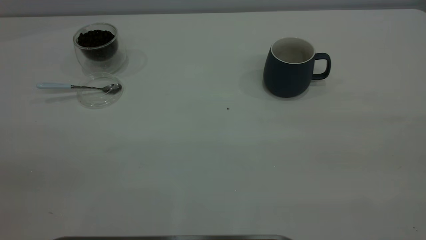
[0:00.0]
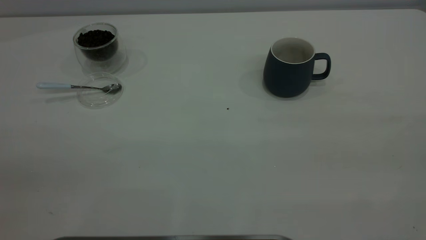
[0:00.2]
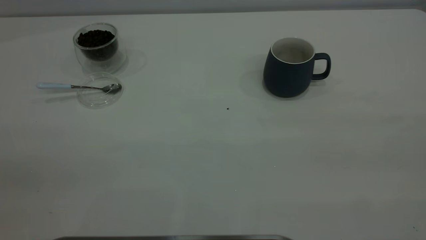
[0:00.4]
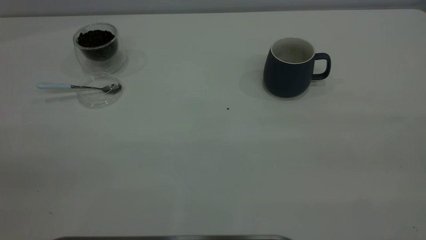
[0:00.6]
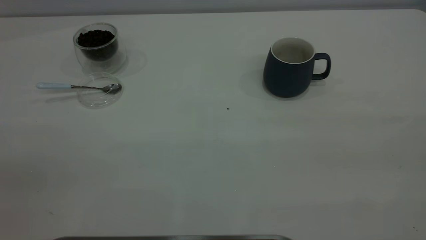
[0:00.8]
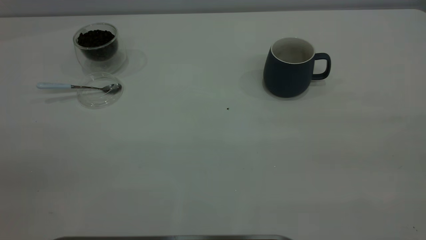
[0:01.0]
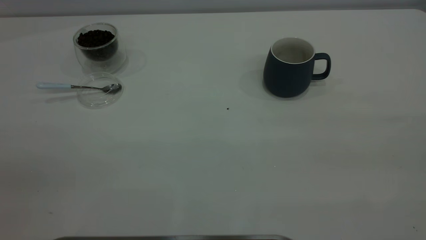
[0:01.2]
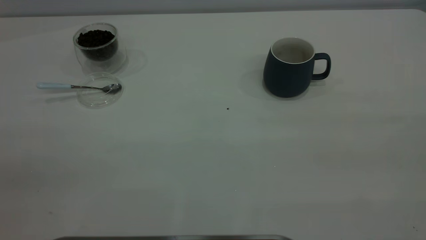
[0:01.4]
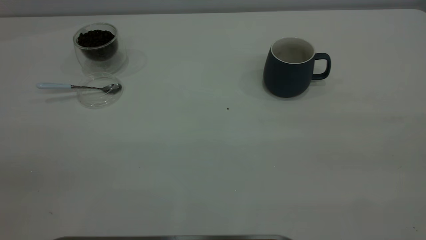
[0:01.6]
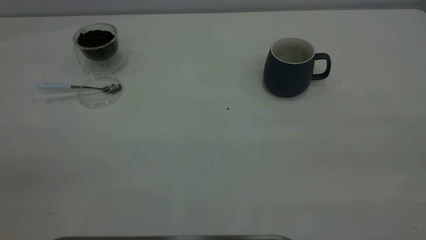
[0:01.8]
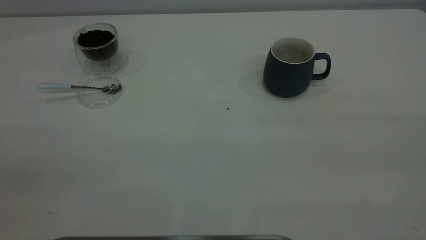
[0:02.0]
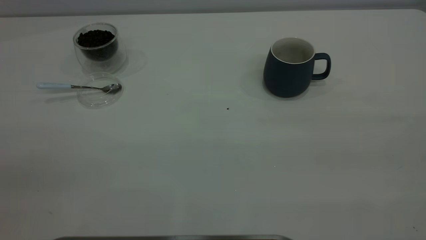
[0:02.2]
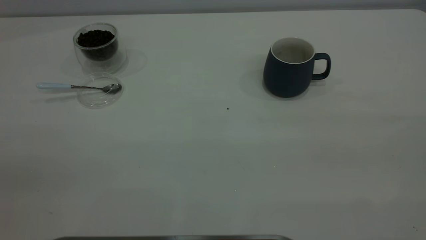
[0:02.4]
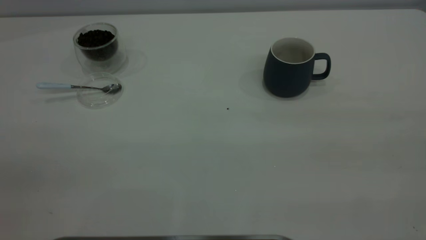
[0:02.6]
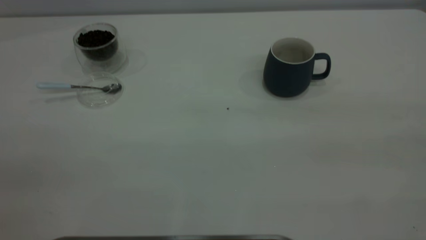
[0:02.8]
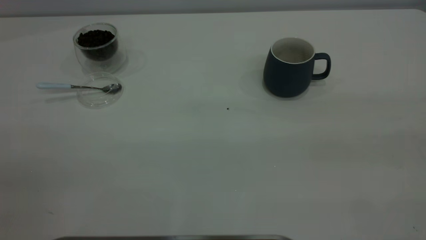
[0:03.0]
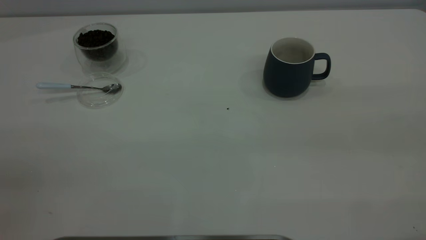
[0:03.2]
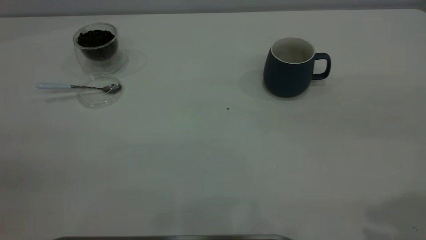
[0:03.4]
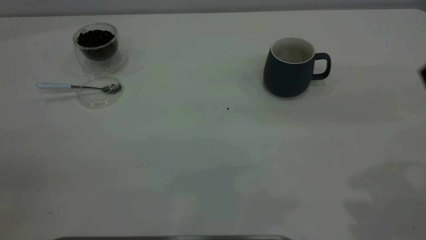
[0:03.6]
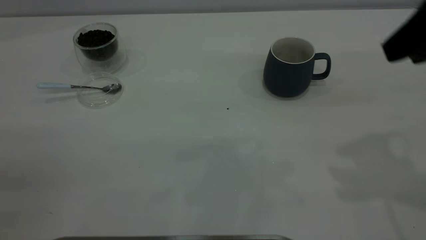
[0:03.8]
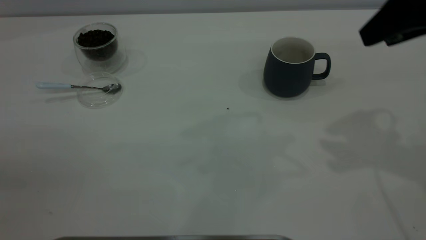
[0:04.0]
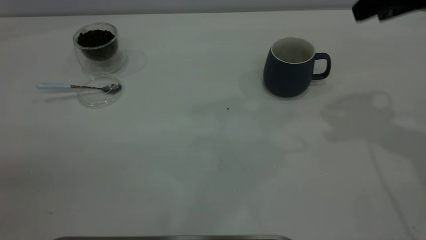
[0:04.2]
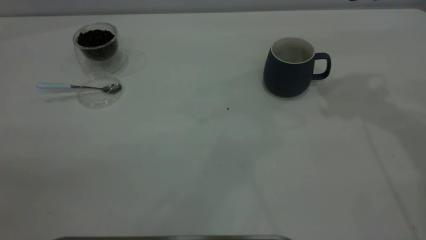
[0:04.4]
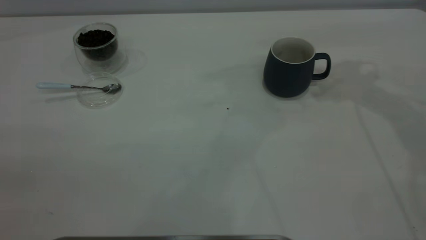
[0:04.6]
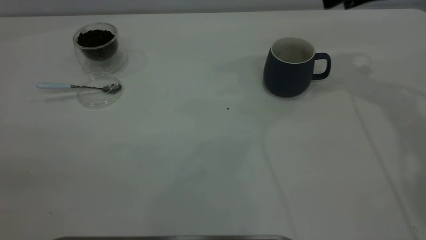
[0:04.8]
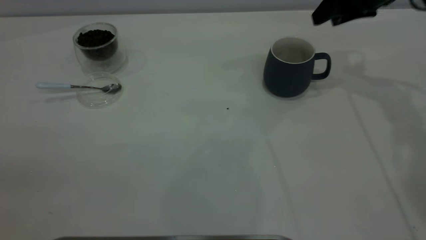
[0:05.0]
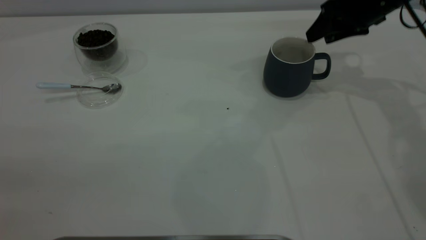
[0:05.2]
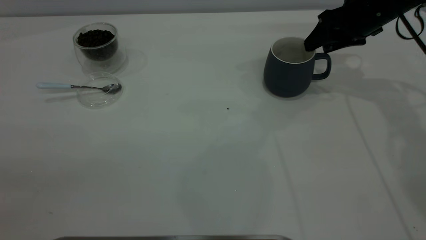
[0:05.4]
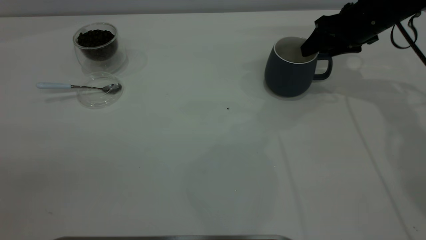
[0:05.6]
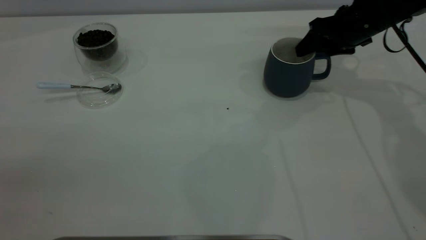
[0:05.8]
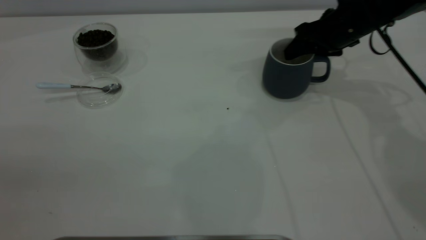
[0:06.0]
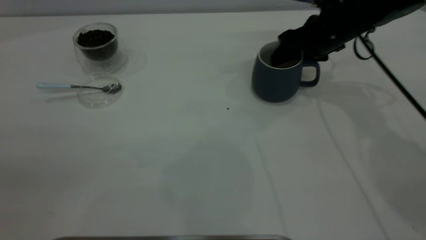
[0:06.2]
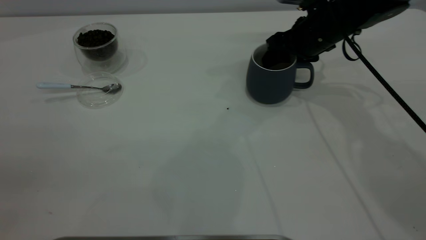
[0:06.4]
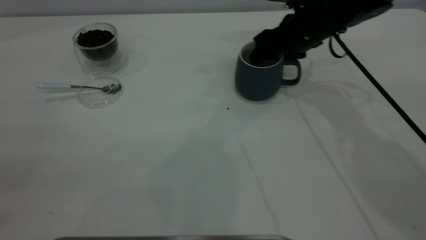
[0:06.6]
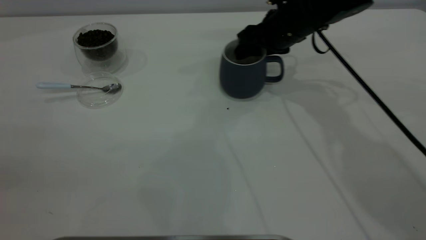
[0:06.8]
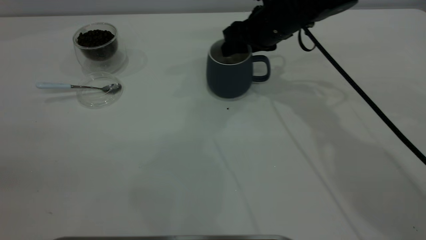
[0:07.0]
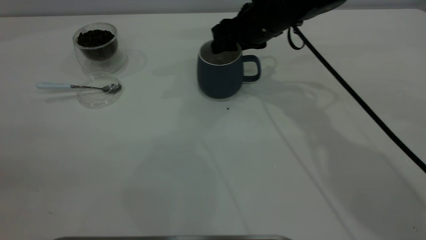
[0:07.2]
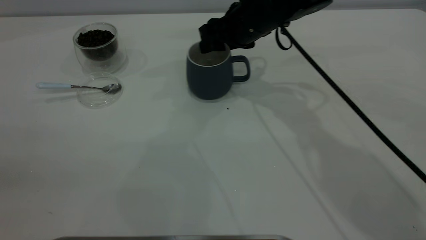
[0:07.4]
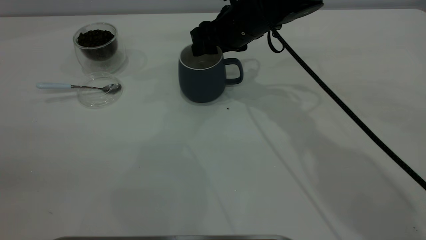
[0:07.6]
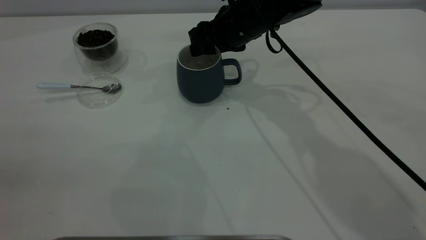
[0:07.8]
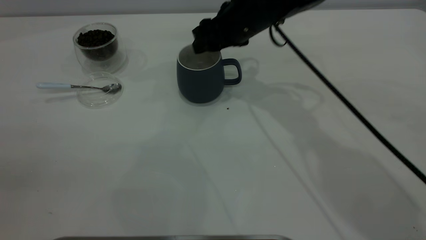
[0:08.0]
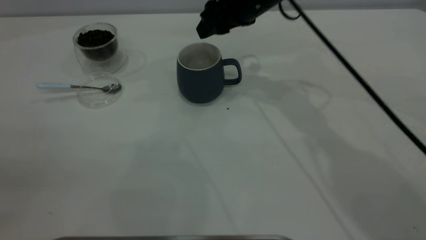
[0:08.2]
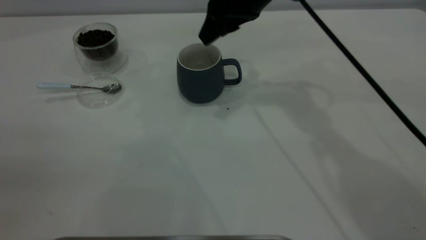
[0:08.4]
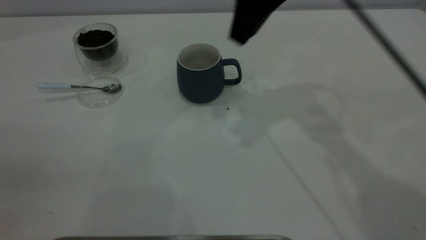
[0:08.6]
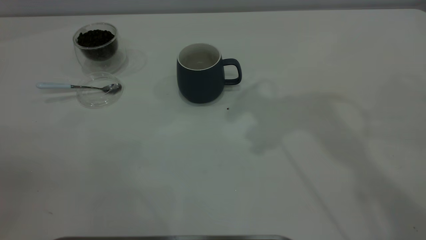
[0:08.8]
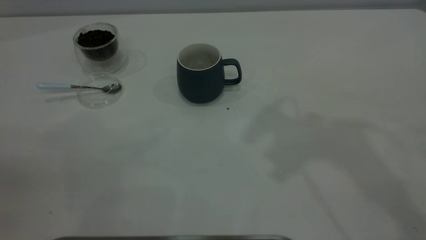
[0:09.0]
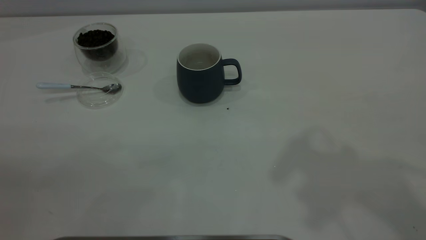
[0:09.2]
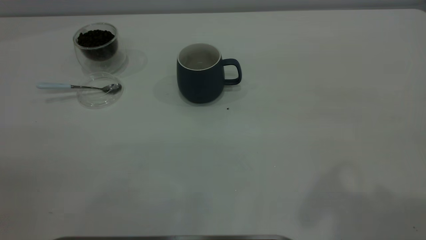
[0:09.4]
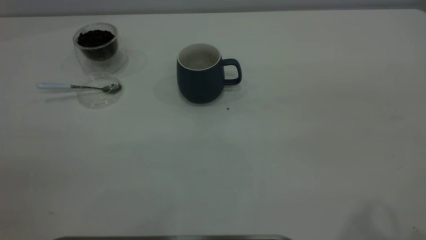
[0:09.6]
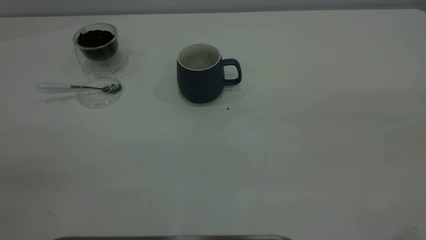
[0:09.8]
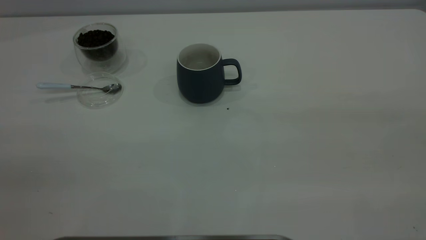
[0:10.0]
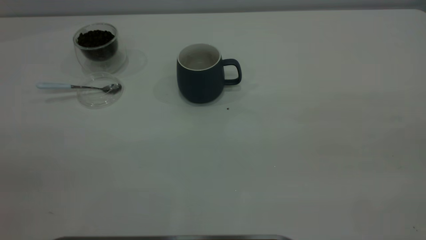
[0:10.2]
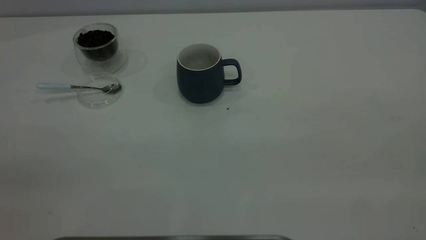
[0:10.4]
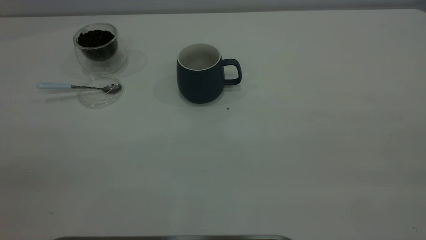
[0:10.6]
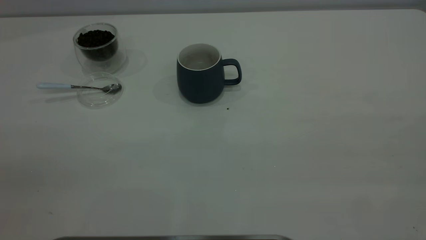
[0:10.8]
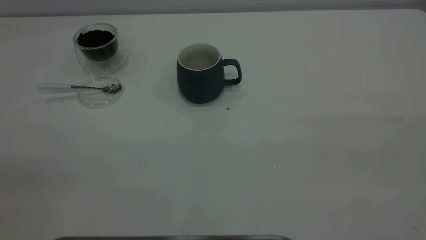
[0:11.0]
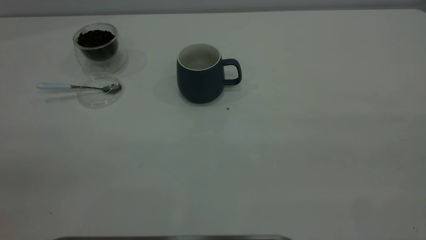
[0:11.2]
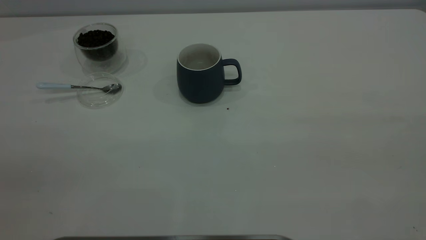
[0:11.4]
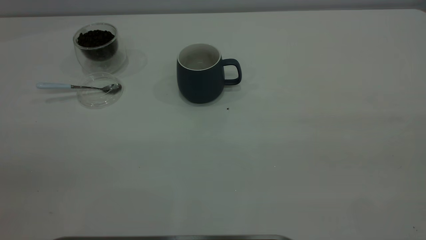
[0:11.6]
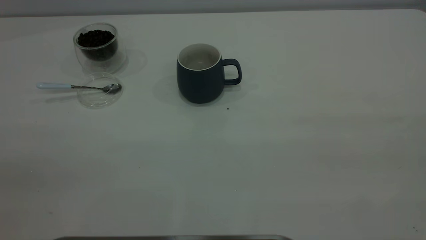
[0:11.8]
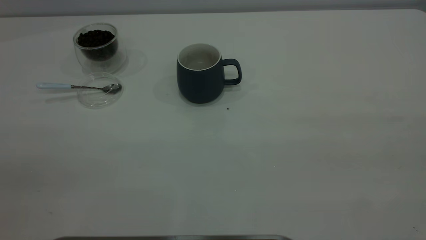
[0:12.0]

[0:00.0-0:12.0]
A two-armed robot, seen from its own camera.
Task of the whole recording: the right gripper place the grey cup in the center of the table, the left gripper take the blue spoon from the cup lid and scoop out the coffee beans from the coffee cup and put them into the grey cup, the left gripper put the spoon back into the cup lid.
Step, 0:00.0 to 0:08.2: Move the cup to the center of view.
0:00.0 to 0:01.6: Both grippers stay about where they are.
0:04.4 to 0:06.0: The right gripper goes approximately 15 cm downward and forward.
0:06.0 to 0:07.6: The right gripper shifts about 15 cm to the left.
0:07.6 to 0:09.0: The right gripper moves upward and backward, roughly 35 cm.

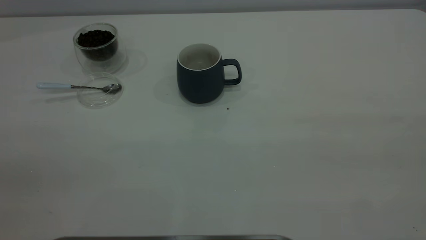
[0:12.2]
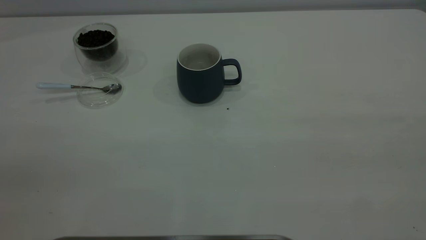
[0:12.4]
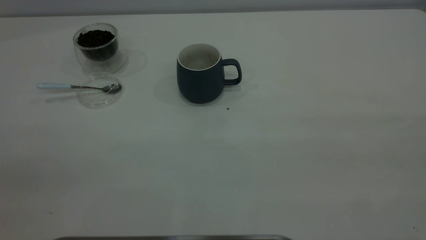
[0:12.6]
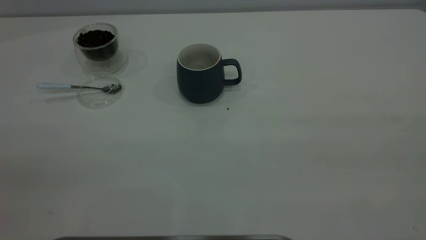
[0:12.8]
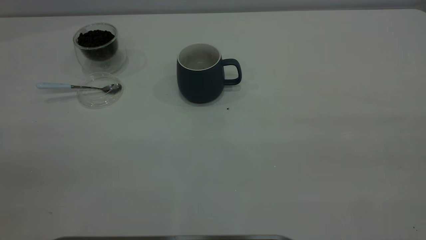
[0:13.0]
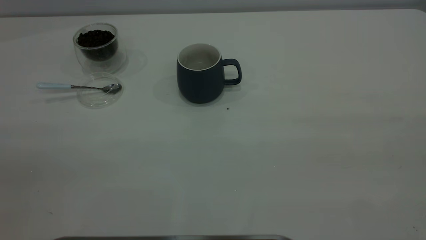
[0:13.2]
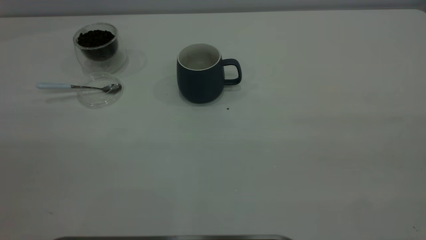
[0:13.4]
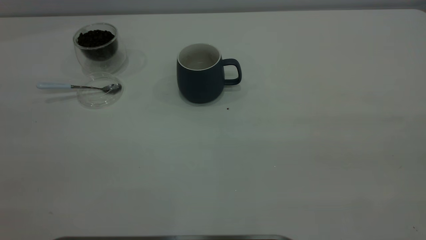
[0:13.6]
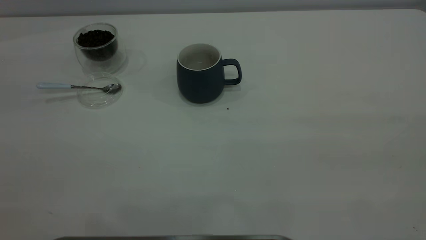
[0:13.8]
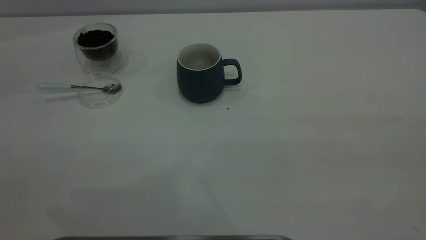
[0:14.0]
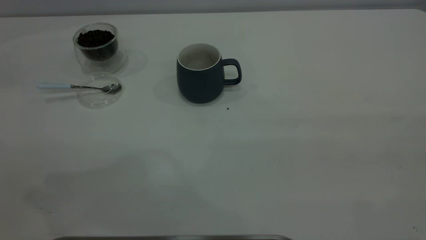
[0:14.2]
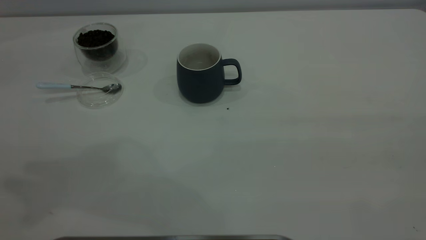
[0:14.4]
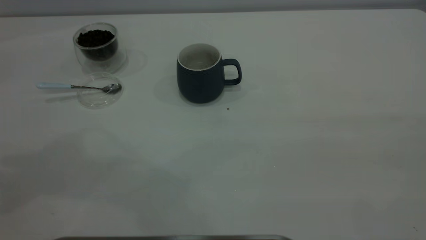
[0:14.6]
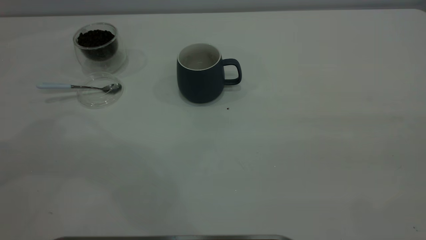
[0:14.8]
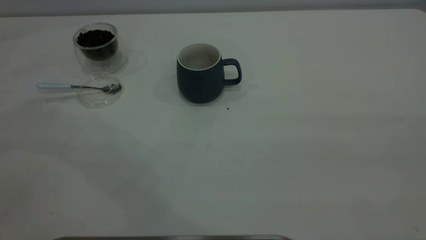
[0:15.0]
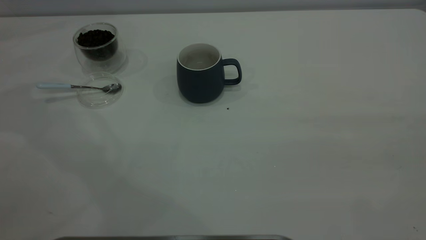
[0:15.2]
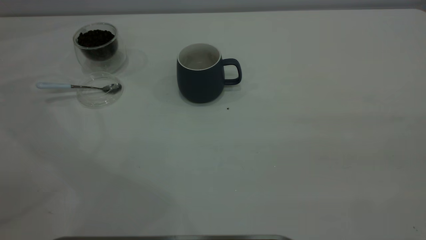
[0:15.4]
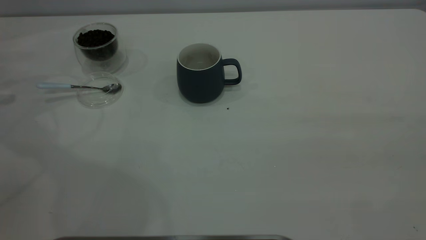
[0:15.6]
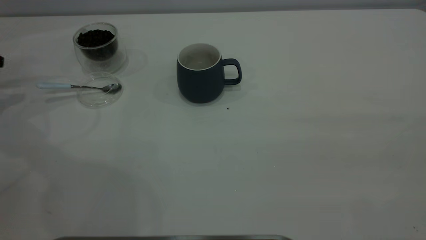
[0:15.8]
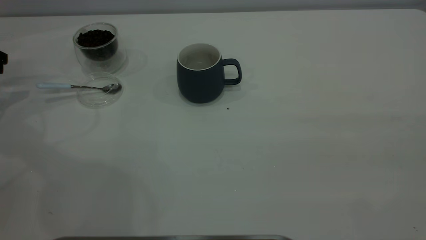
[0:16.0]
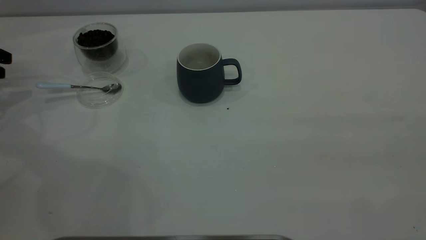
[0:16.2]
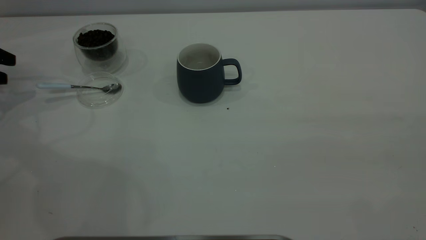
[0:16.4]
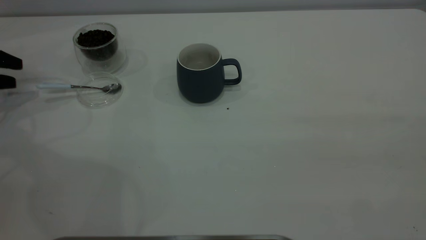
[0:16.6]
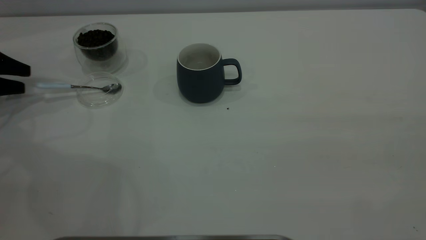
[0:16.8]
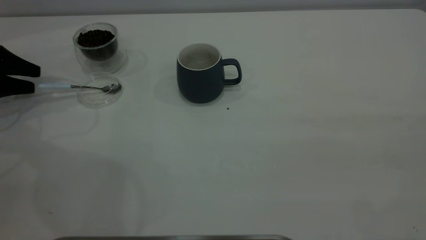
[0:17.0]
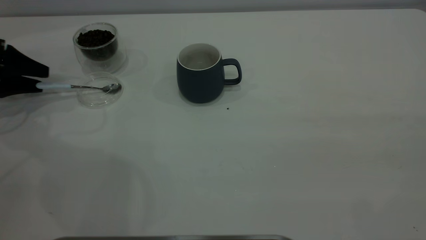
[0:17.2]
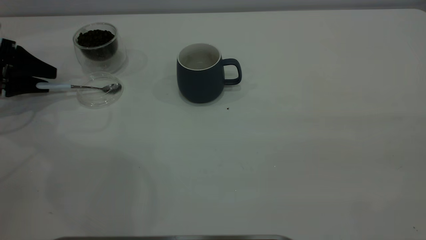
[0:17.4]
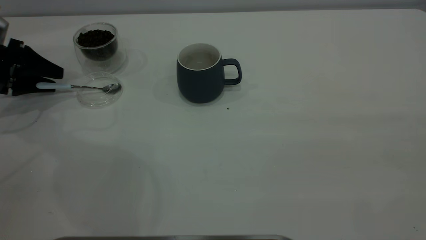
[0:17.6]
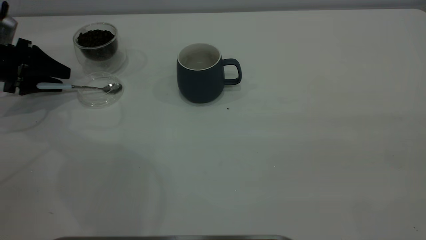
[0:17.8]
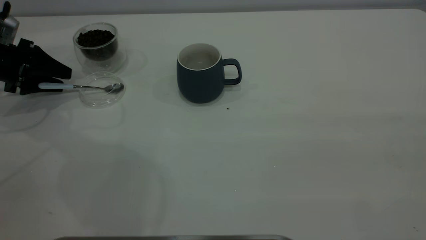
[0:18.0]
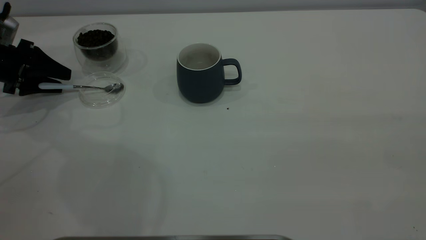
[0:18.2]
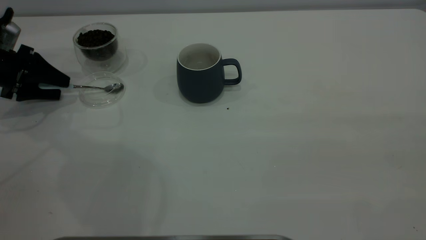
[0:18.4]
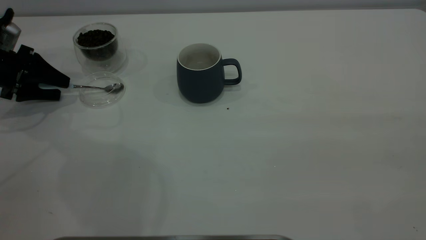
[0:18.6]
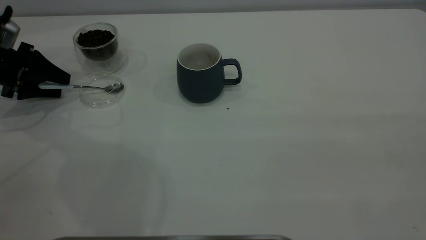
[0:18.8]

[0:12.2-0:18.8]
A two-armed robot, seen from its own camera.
Task of the whole recording: the right gripper place the grey cup in the center of the table, the left gripper take the blue spoon from the cup lid and scoop out the coffee beans from the coffee cup and put them into the grey cup, the left gripper put the spoon back into the cup lid.
0:15.4 to 0:17.2: The left gripper heads downward and to the right, covering some 15 cm, and opens its fingers.
0:17.2 to 0:18.8: There are only small adjustments of the grippers.
